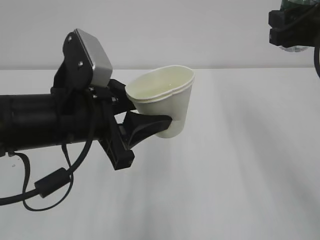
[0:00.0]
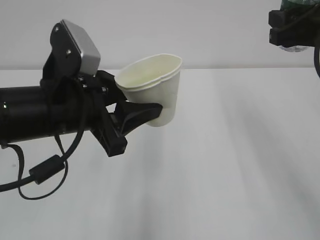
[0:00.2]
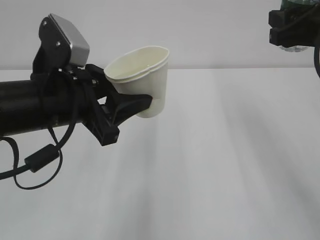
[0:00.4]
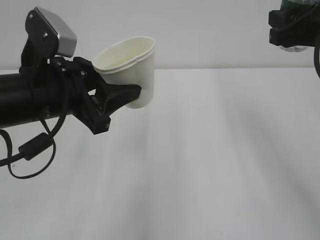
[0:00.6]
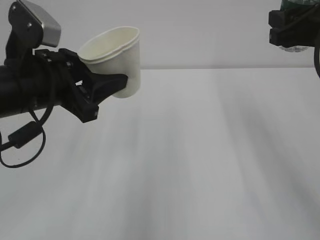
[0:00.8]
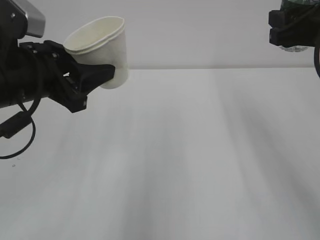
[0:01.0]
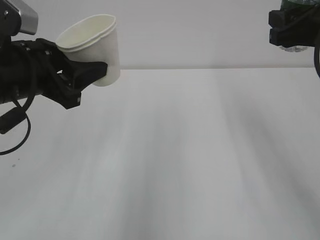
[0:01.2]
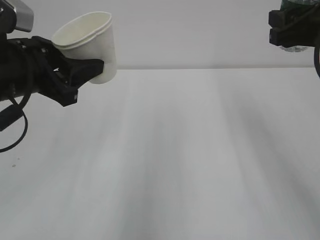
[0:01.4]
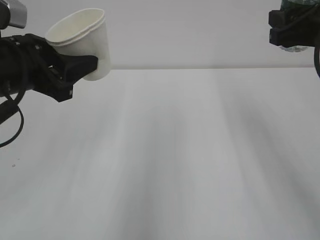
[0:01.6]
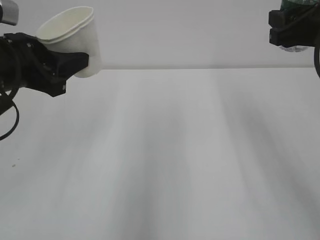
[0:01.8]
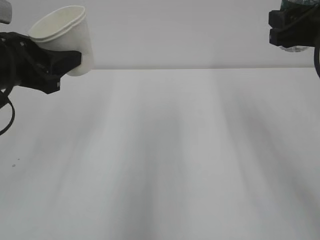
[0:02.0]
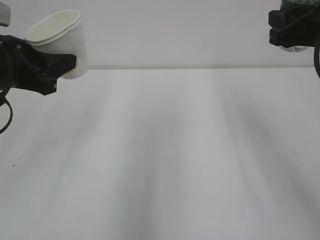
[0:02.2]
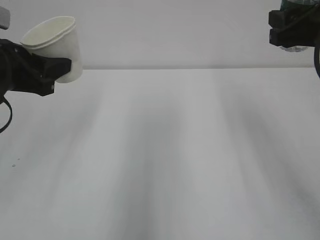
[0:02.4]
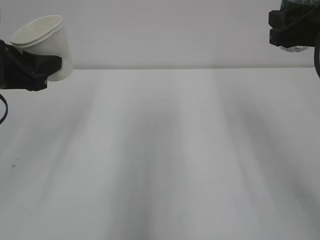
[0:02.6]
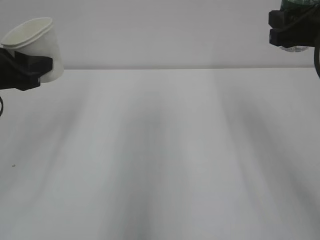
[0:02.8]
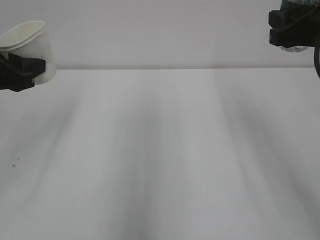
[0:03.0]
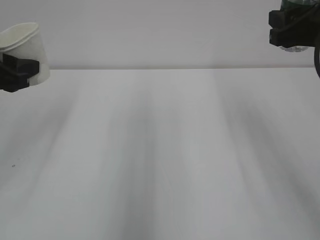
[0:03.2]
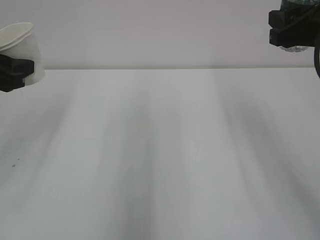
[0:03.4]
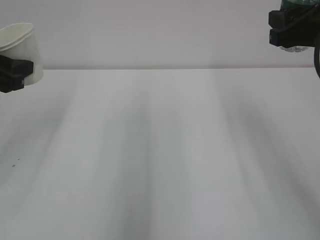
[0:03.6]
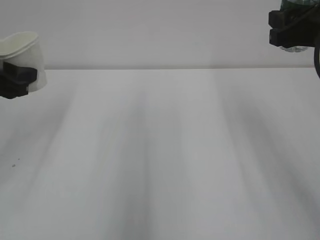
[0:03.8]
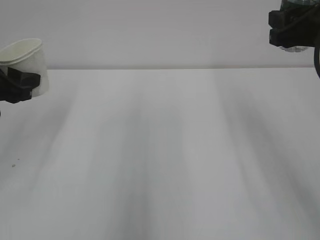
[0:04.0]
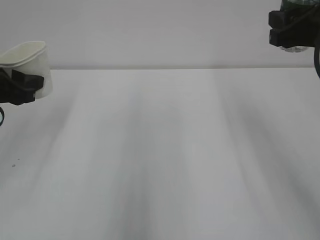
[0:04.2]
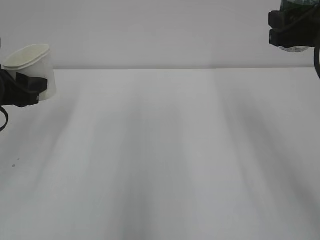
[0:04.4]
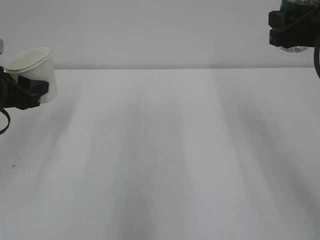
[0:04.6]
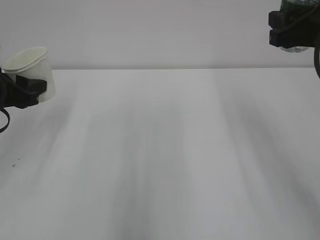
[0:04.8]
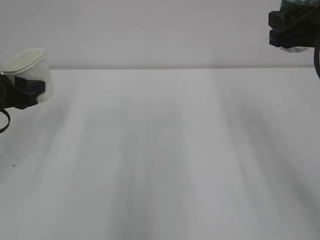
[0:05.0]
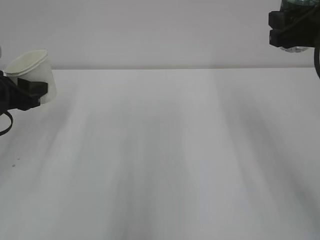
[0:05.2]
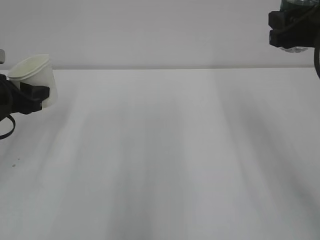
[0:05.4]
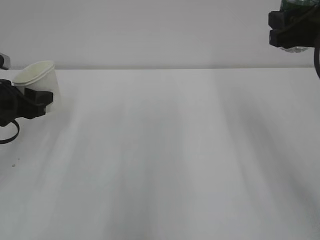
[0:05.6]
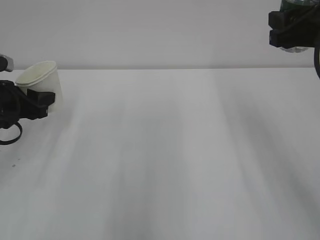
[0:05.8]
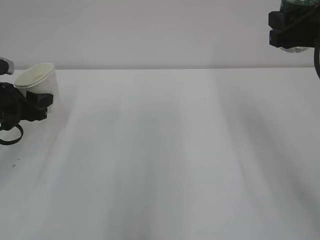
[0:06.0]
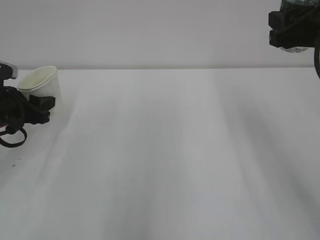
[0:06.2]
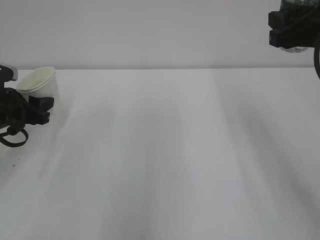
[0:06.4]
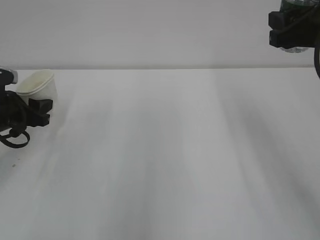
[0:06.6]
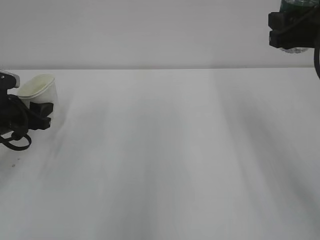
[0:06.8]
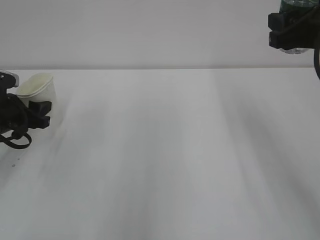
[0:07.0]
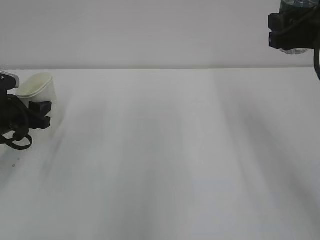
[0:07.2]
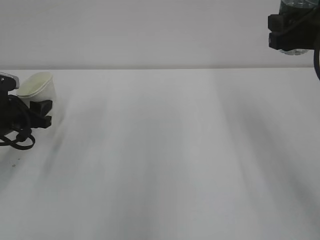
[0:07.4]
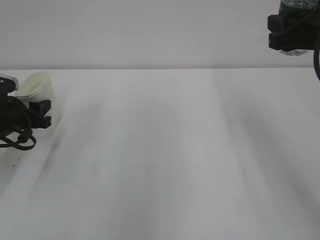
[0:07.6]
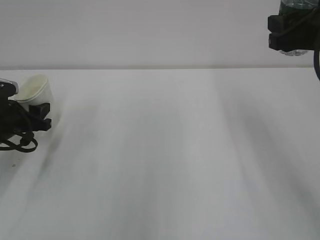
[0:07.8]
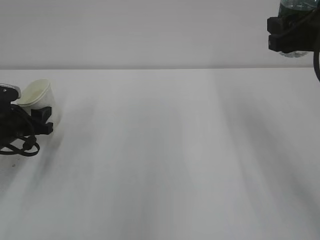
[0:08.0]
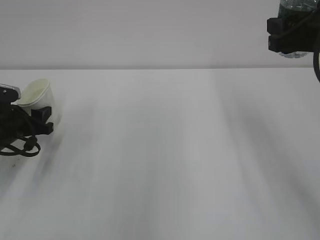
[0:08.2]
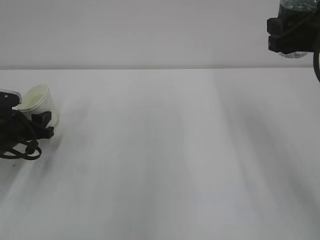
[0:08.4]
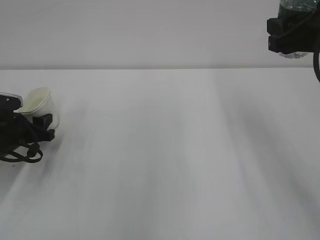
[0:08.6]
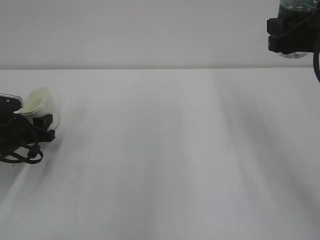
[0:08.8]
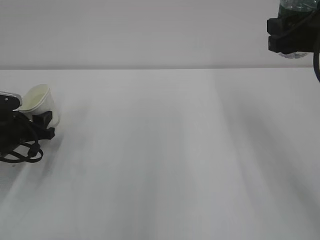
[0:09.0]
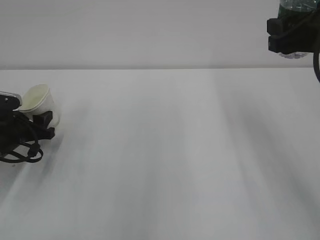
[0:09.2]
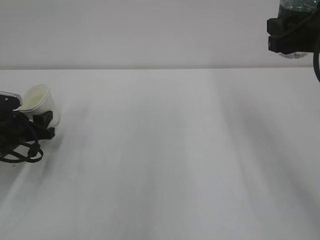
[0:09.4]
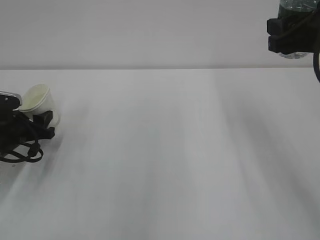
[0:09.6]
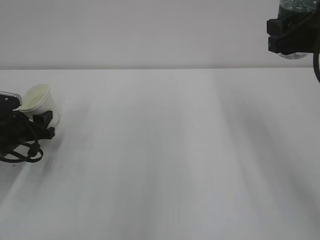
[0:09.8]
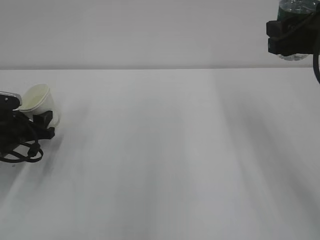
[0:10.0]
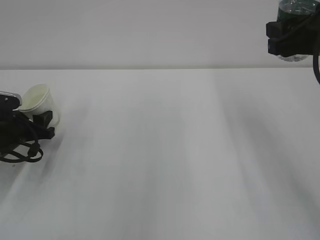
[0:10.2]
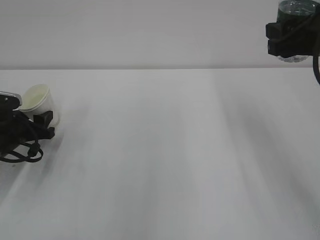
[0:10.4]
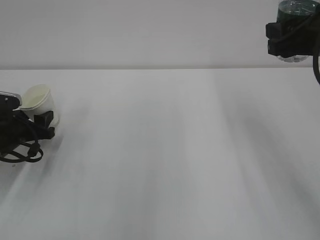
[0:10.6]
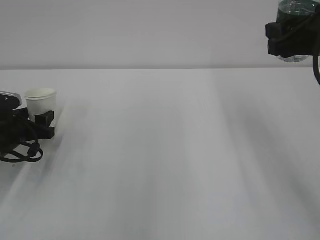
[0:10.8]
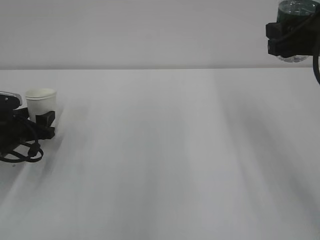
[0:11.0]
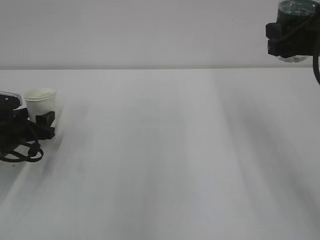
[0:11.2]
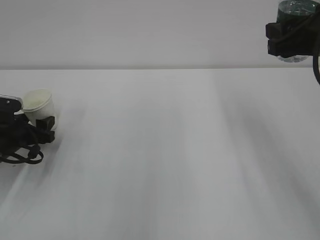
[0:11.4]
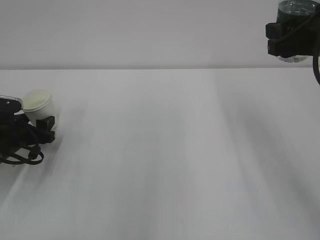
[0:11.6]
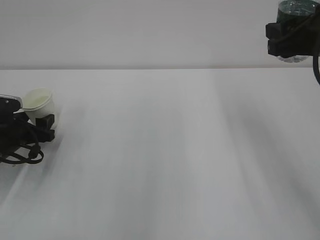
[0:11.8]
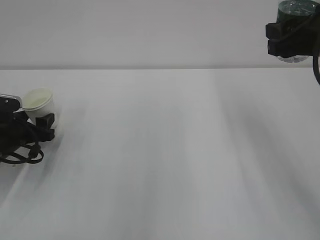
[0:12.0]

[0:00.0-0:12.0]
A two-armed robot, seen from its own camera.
0:00.0 to 0:01.6: The left gripper shifts about 10 cm to the left.
0:01.6 to 0:03.0: The left gripper heads to the left, covering some 5 cm.
0:03.0 to 0:04.4: There are only small adjustments of the grippers.
0:04.4 to 0:06.0: The left gripper is displaced downward by roughly 5 cm.
0:06.0 to 0:07.6: The left gripper ends up roughly 5 cm from where it was.
0:07.6 to 0:09.0: The grippers make only small movements.
0:09.0 to 0:10.4: Both grippers stay put.
0:10.4 to 0:12.0: The left gripper opens.

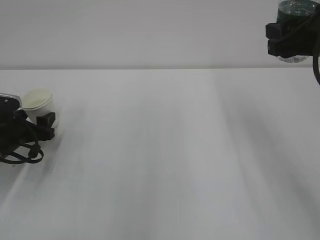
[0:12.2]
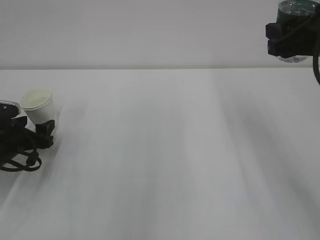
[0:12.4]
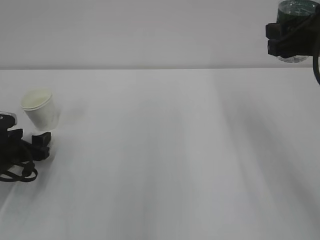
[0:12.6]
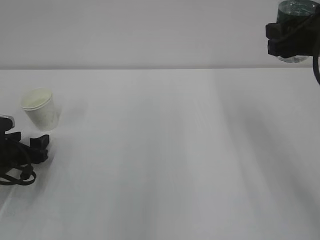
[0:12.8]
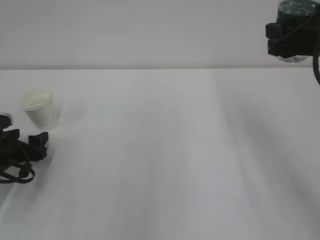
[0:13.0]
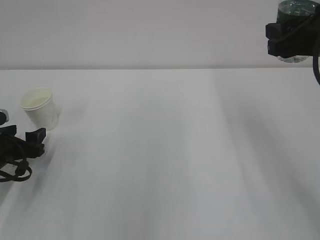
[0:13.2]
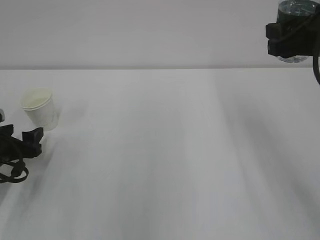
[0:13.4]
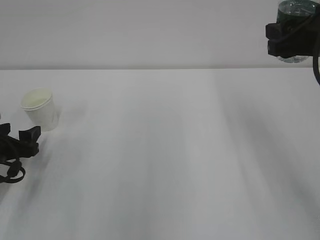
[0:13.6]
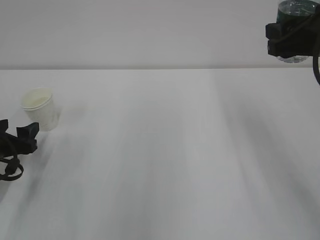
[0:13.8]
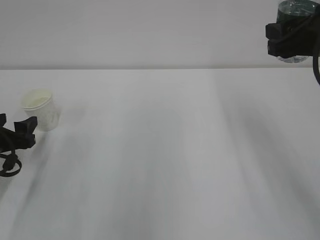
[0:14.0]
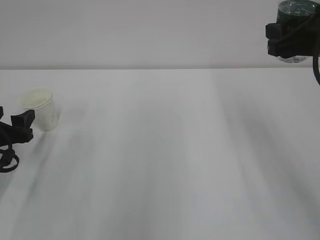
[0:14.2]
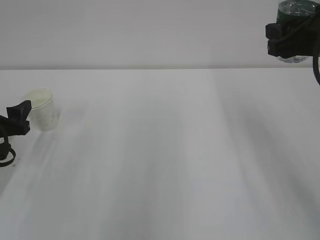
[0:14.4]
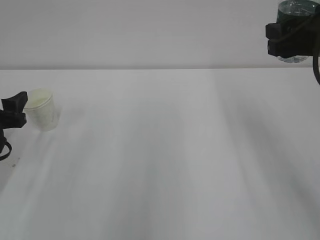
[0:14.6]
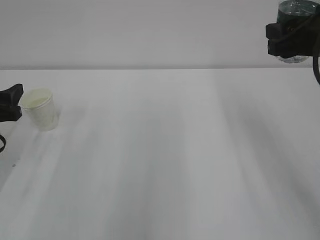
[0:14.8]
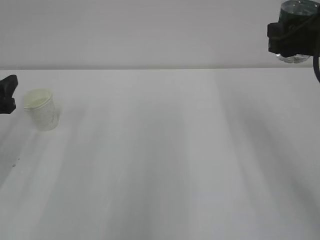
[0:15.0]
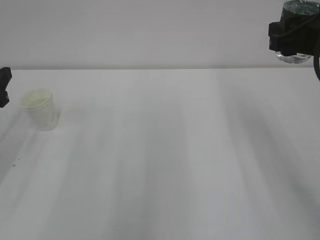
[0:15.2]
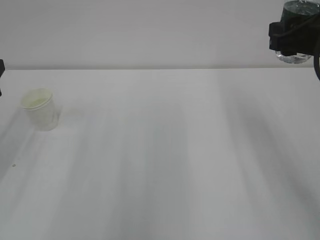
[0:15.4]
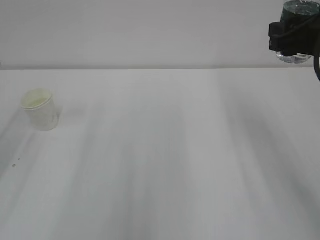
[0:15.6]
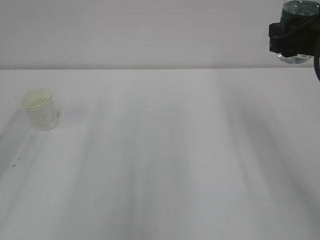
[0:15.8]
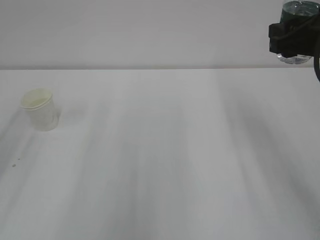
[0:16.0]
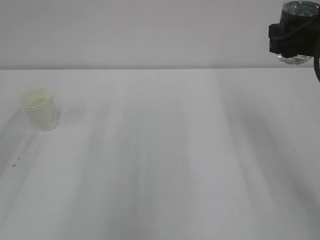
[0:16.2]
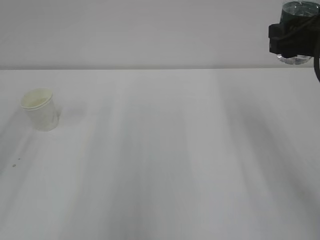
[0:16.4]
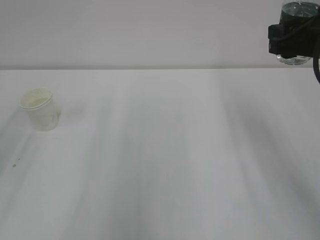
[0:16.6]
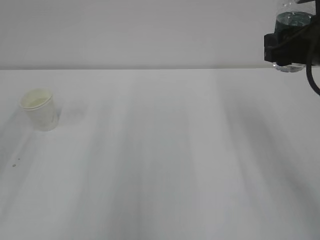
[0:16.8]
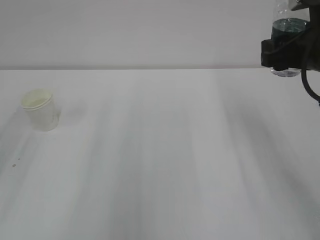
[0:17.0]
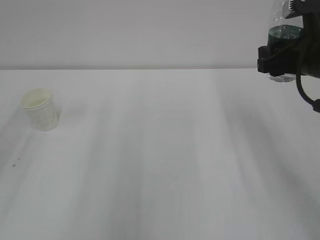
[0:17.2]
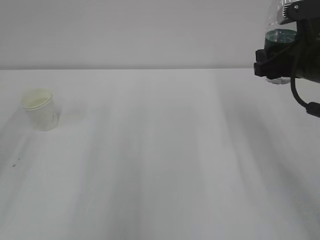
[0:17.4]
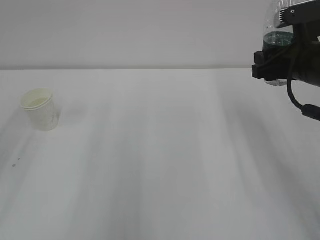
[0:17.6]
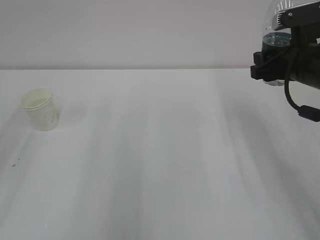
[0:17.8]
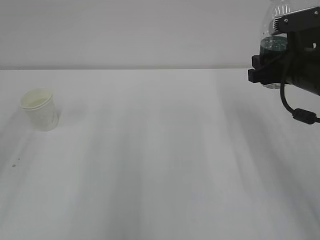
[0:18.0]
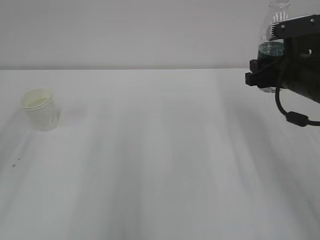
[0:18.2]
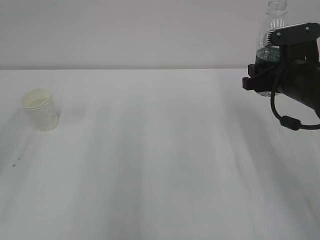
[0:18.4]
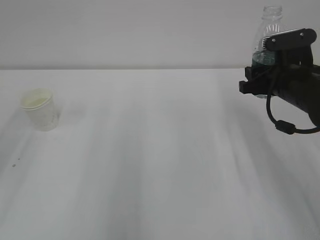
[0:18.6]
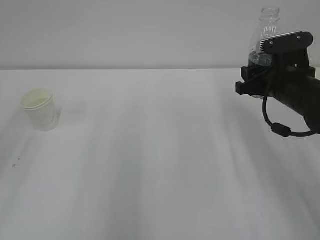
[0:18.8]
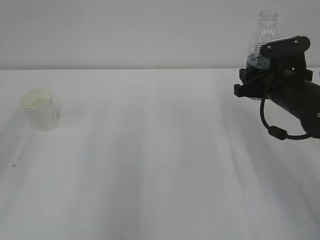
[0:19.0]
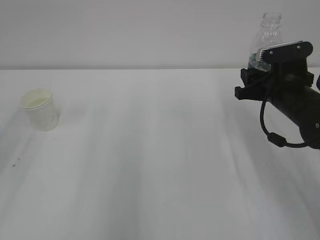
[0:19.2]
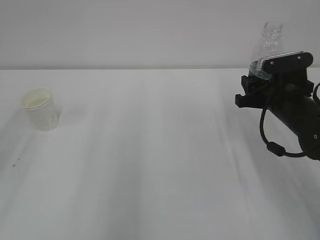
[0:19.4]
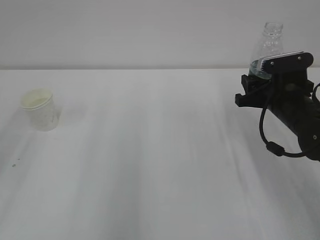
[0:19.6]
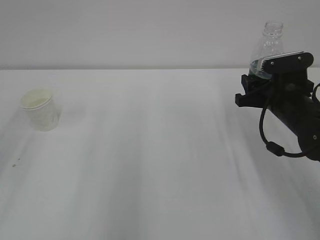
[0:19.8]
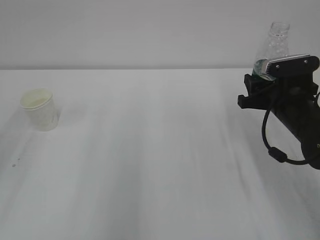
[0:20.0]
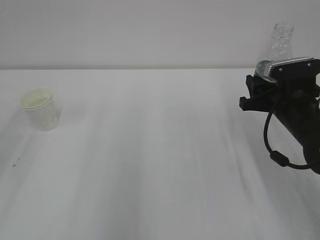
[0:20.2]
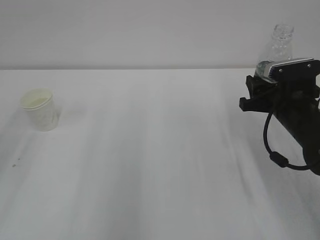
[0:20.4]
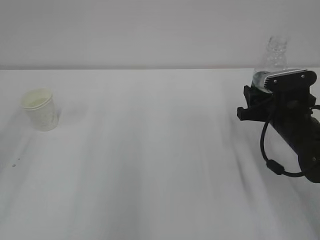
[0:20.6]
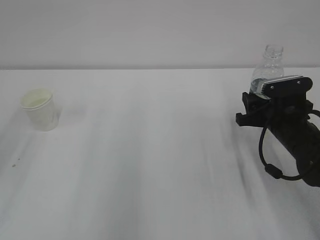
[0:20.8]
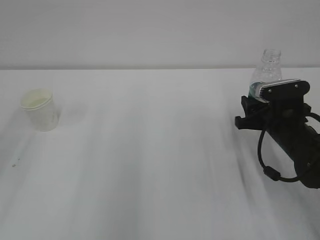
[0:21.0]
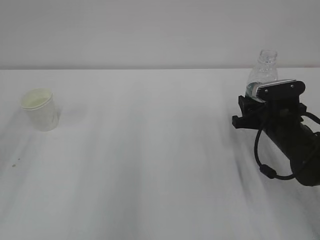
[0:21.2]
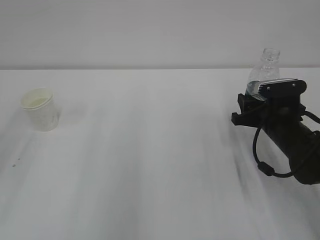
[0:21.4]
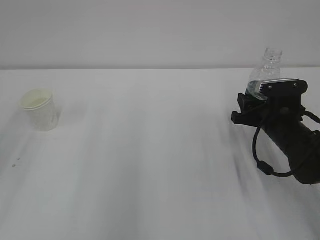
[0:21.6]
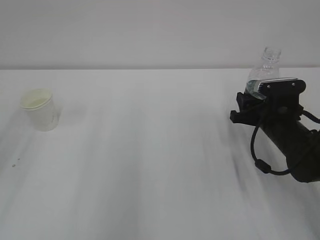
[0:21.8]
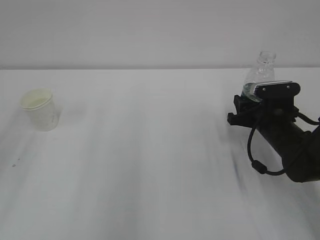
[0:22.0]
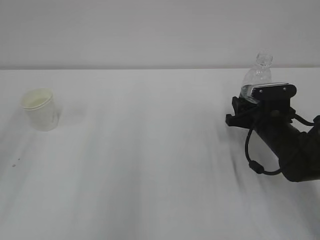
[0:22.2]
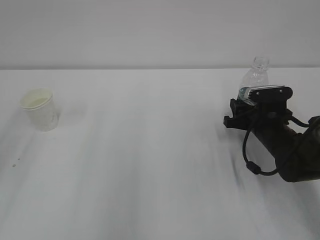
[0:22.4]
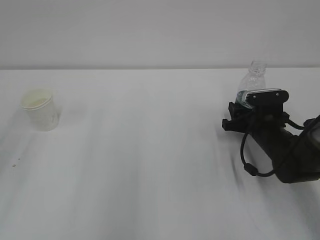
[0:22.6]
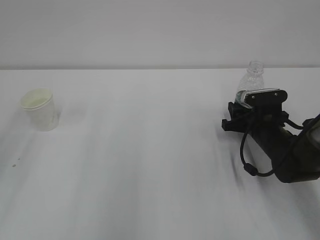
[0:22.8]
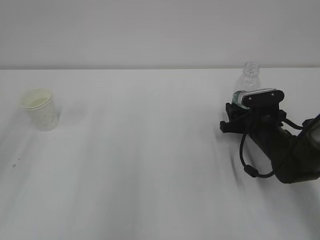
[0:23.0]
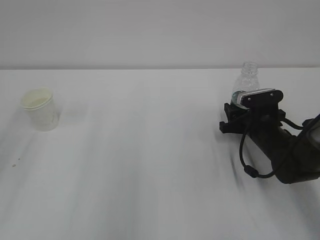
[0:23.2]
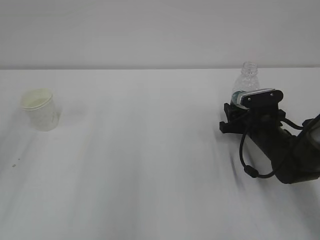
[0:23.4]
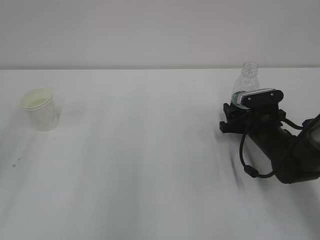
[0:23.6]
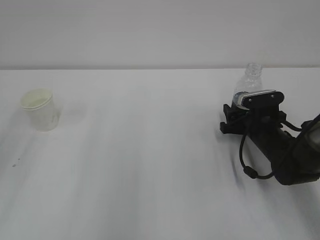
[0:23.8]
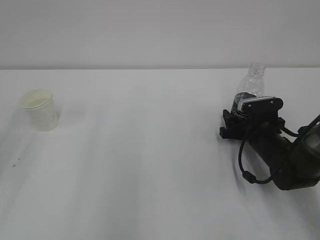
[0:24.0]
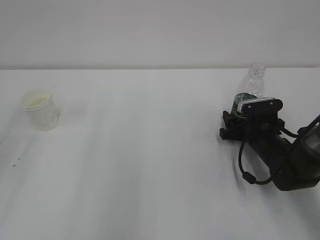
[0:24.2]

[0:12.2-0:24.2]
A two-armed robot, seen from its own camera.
0:12.2 to 0:13.8: The left gripper moves backward, approximately 5 cm.
0:13.8 to 0:15.2: The left gripper shifts some 10 cm upward.
0:16.6 to 0:18.2: The right gripper heads downward, covering some 10 cm.
0:18.2 to 0:19.8: The right gripper is displaced downward by roughly 5 cm.
0:19.8 to 0:21.2: The right gripper moves downward, roughly 5 cm.
0:21.2 to 0:22.6: The grippers make only small movements.
0:22.6 to 0:24.2: The right gripper opens its fingers.
